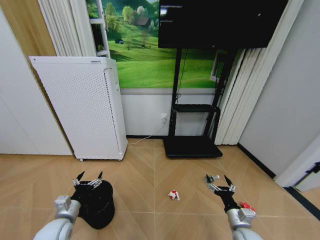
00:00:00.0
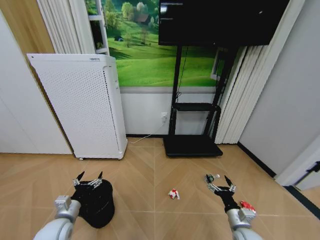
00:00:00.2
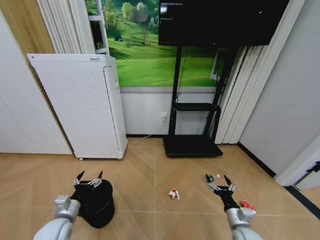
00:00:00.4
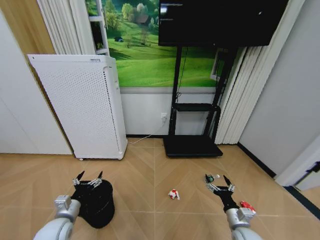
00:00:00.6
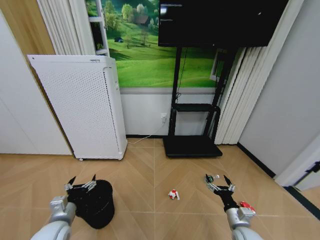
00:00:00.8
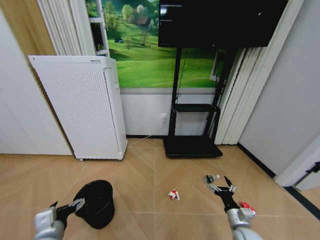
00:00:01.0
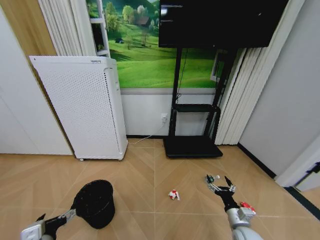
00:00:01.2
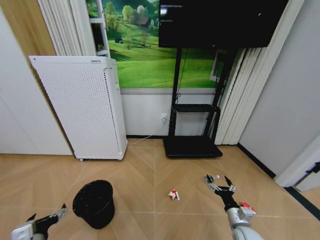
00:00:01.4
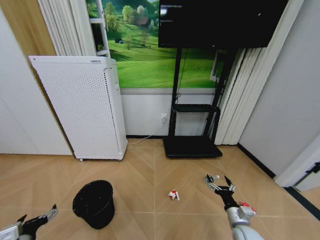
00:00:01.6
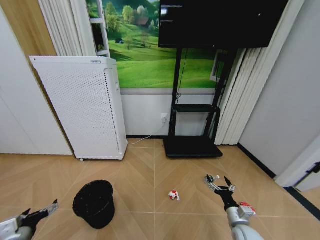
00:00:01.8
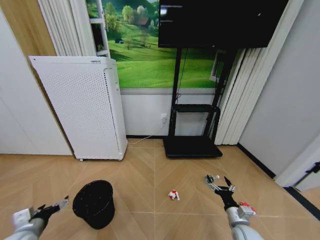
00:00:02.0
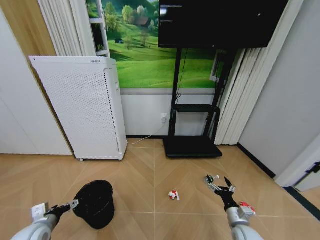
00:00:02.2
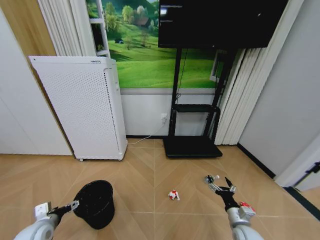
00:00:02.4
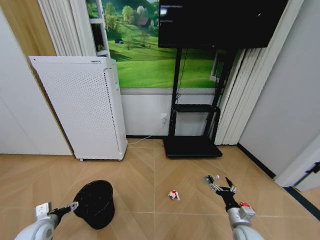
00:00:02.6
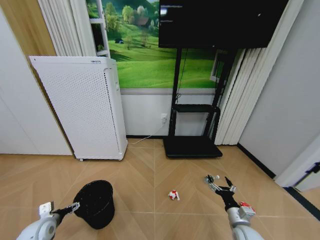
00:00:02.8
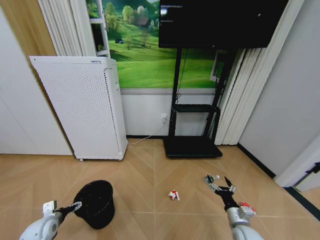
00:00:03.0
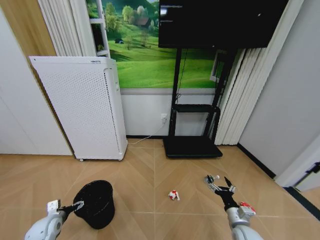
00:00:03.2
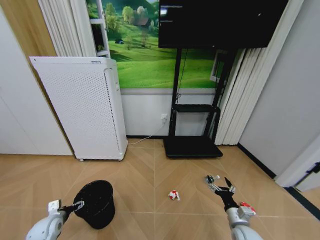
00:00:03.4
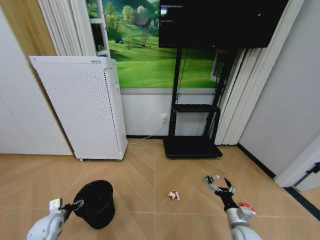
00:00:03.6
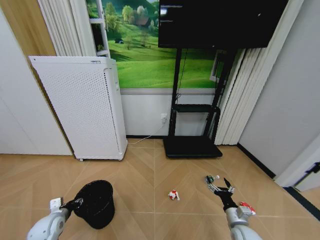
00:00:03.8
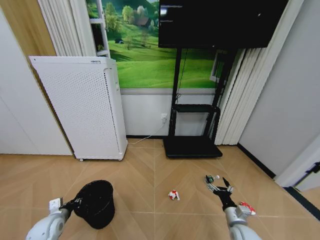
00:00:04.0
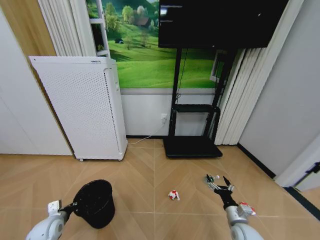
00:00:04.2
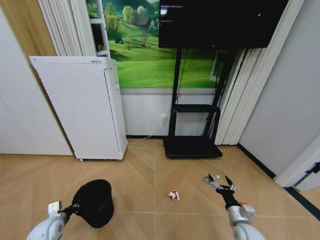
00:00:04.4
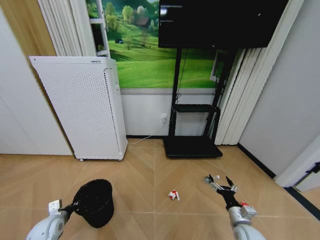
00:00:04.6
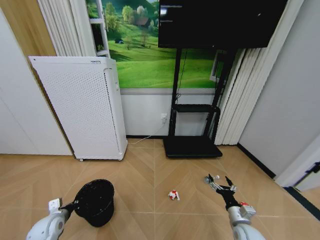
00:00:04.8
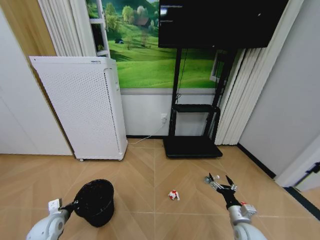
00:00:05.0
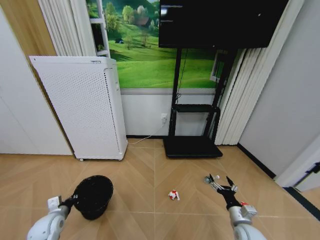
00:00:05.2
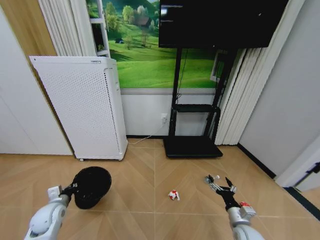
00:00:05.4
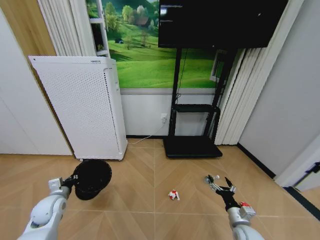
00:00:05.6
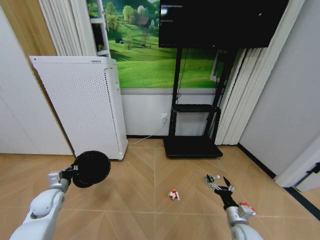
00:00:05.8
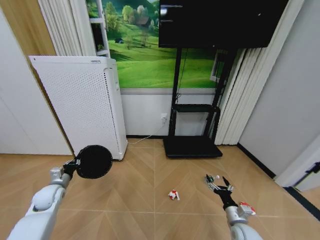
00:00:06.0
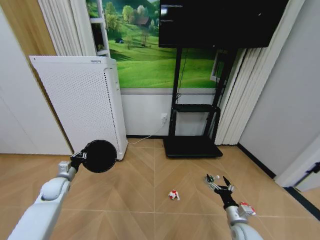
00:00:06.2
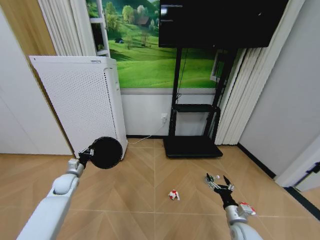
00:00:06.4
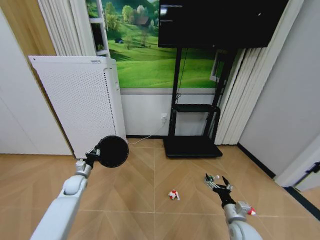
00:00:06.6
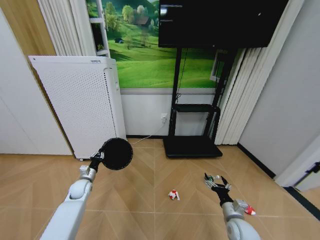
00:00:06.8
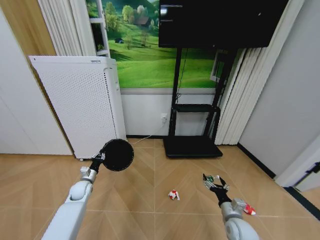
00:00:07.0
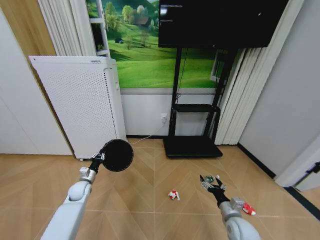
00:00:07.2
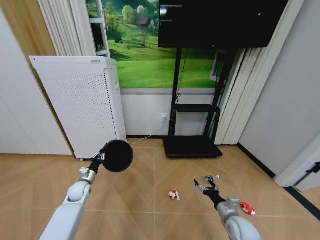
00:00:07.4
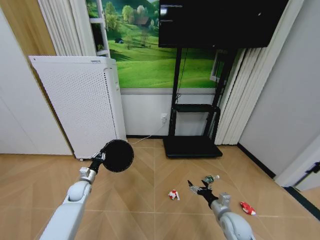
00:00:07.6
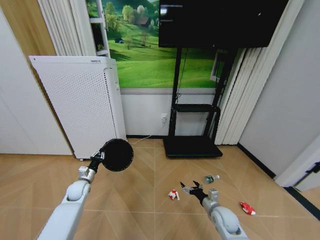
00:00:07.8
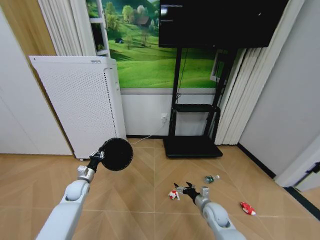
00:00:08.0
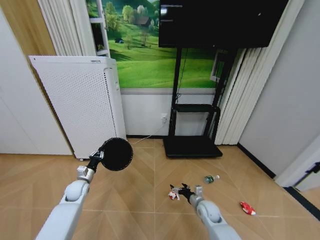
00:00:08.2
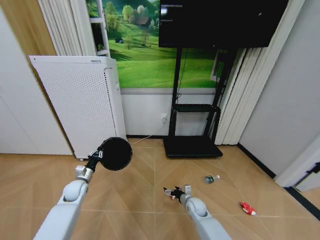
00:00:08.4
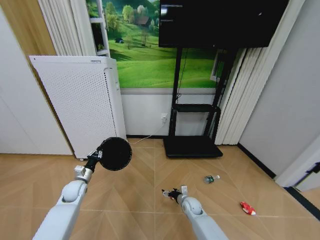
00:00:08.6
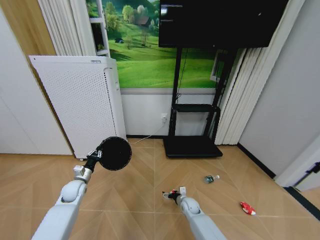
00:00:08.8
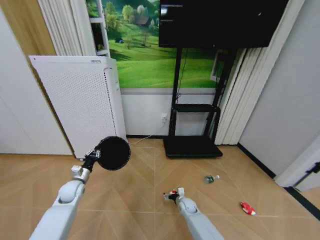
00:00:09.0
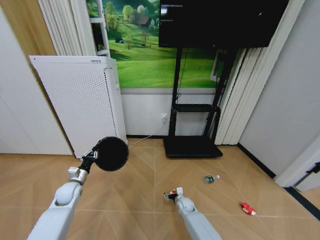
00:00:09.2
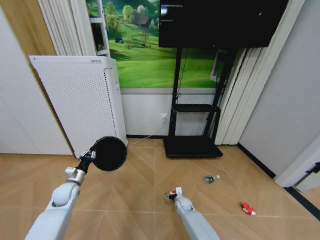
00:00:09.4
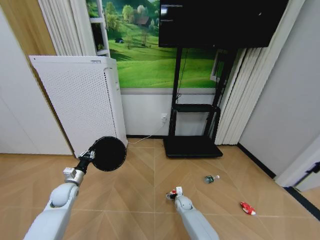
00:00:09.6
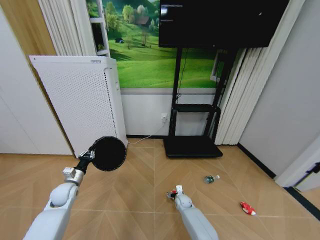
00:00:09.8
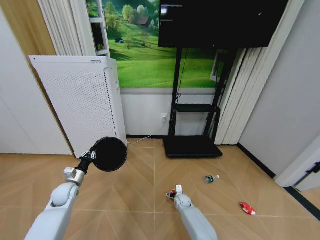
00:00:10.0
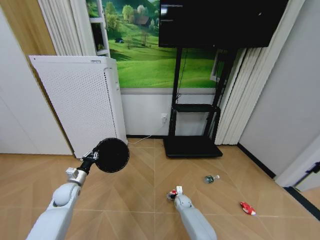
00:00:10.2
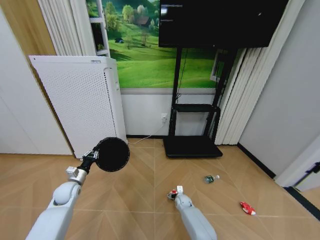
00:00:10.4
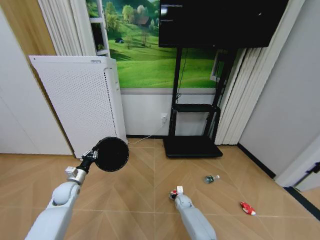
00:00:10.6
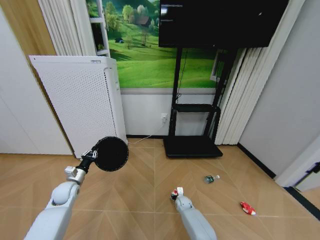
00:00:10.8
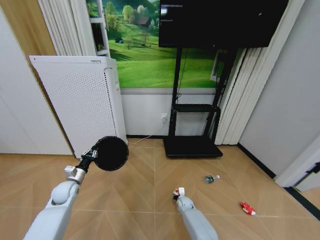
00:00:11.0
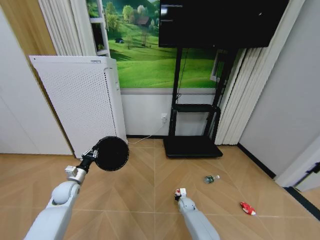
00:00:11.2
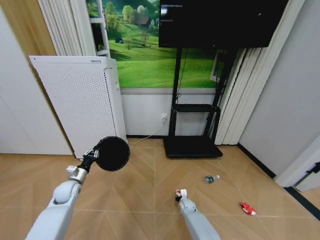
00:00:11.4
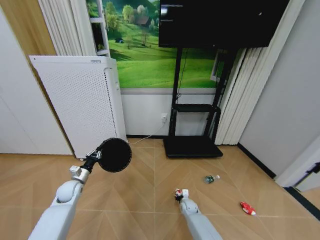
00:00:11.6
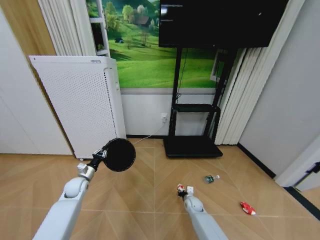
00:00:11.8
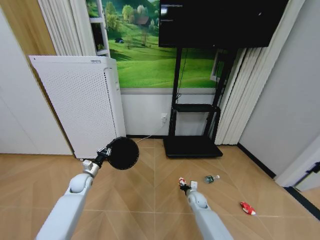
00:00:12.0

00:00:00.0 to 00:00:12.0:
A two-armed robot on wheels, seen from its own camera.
Task of the whole recording: Pick up the trash bin and place the garbage on the floor into it.
00:00:00.0 to 00:00:01.6: The left gripper is displaced backward and to the left by roughly 10 cm.
00:00:01.6 to 00:00:03.0: The left gripper shifts roughly 15 cm forward and downward.
00:00:03.0 to 00:00:04.4: The left gripper closes its fingers.
00:00:04.4 to 00:00:06.0: The left gripper goes approximately 15 cm forward and upward.
00:00:06.0 to 00:00:07.6: The right gripper changes place by approximately 5 cm; the left gripper travels to the right, downward and forward by about 10 cm.
00:00:07.6 to 00:00:09.0: The right gripper moves downward, forward and to the left, some 25 cm.
00:00:09.0 to 00:00:10.4: The right gripper ends up about 5 cm from where it was.
00:00:10.4 to 00:00:12.0: The right gripper shifts roughly 10 cm upward and to the right, and closes; the left gripper travels forward by some 5 cm.

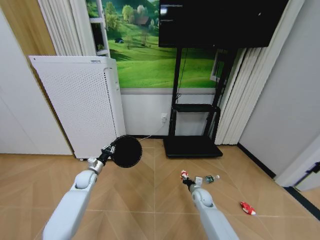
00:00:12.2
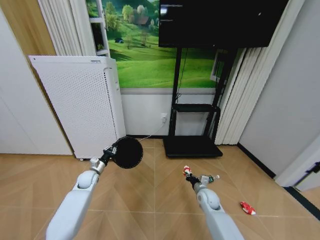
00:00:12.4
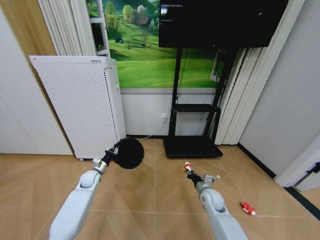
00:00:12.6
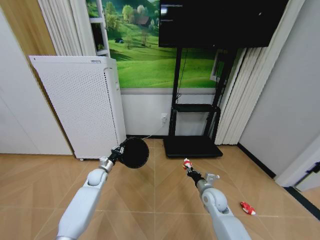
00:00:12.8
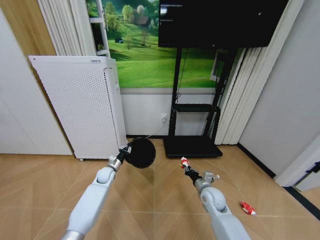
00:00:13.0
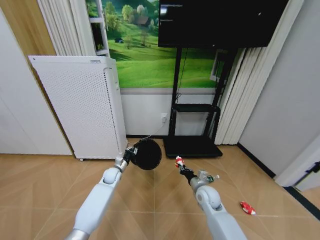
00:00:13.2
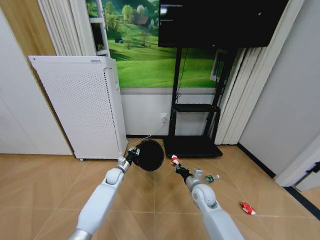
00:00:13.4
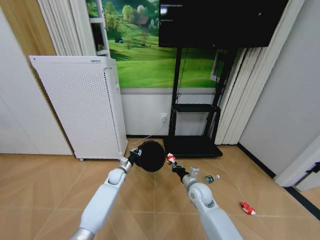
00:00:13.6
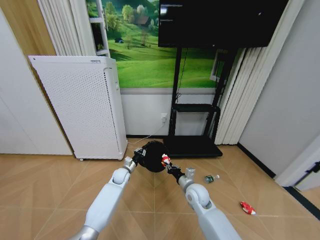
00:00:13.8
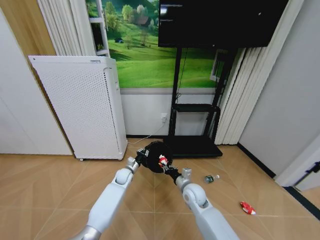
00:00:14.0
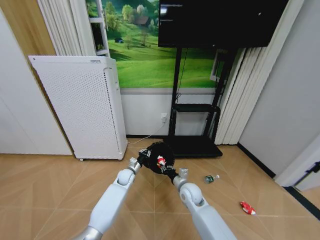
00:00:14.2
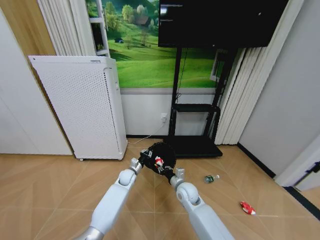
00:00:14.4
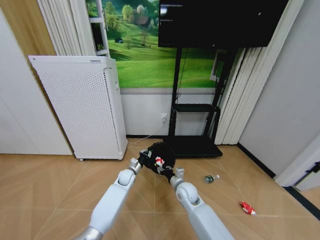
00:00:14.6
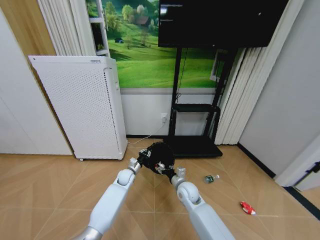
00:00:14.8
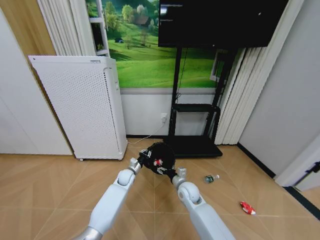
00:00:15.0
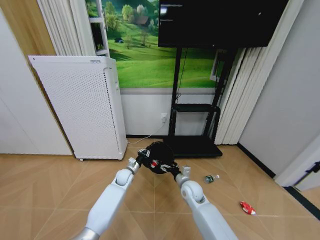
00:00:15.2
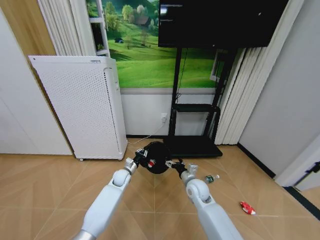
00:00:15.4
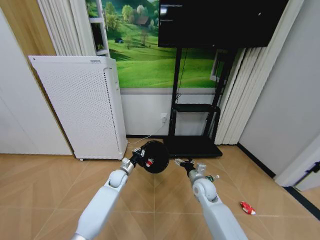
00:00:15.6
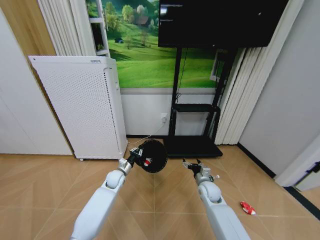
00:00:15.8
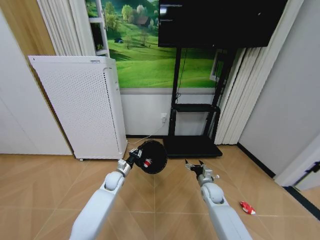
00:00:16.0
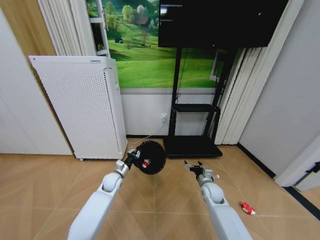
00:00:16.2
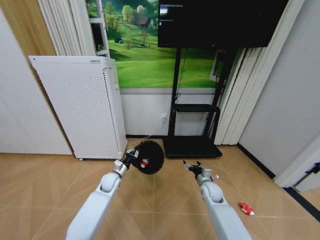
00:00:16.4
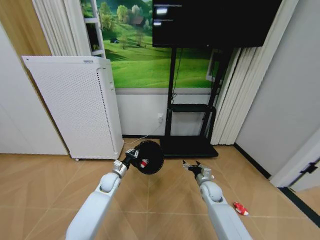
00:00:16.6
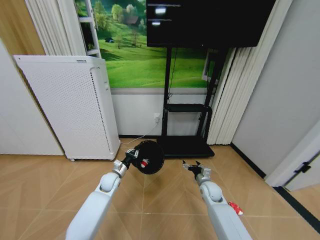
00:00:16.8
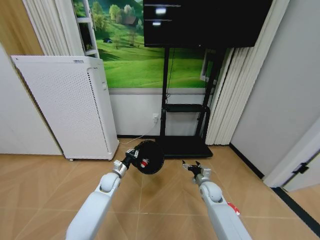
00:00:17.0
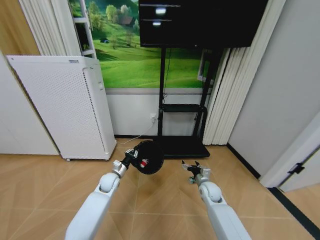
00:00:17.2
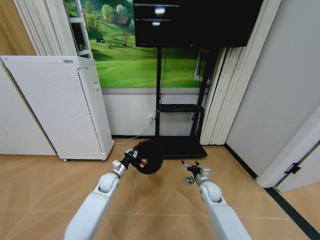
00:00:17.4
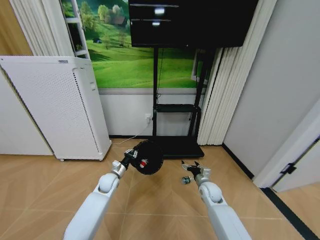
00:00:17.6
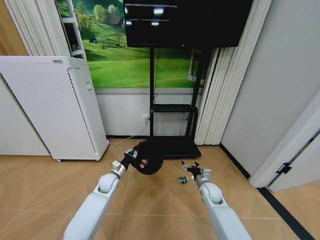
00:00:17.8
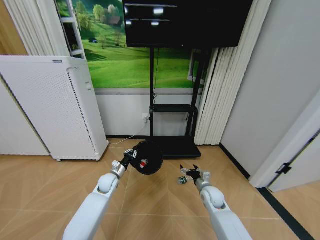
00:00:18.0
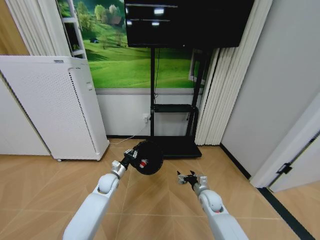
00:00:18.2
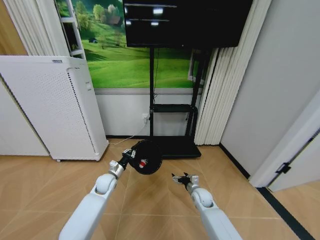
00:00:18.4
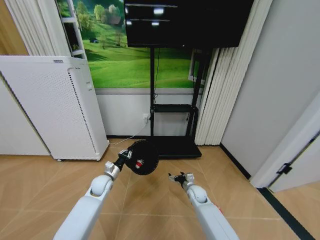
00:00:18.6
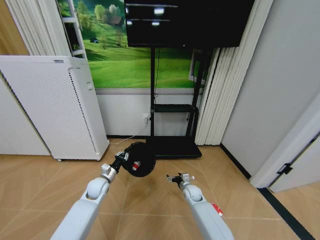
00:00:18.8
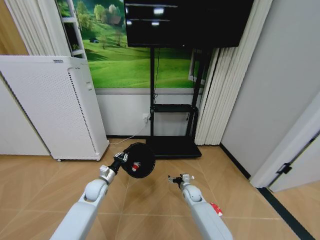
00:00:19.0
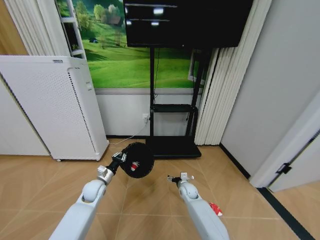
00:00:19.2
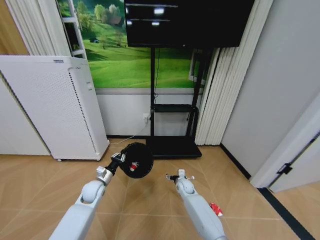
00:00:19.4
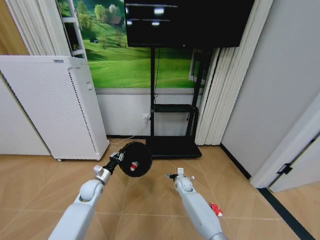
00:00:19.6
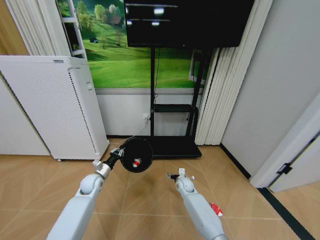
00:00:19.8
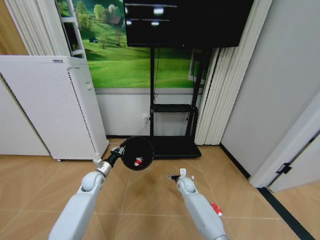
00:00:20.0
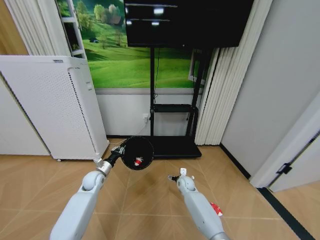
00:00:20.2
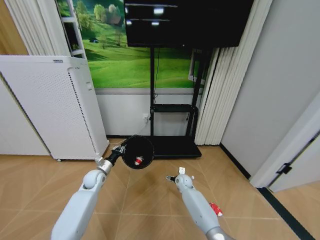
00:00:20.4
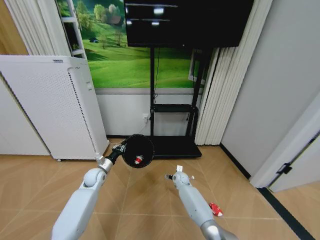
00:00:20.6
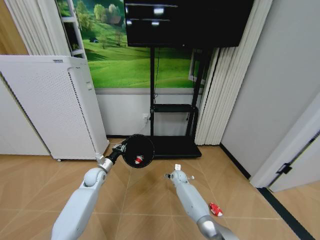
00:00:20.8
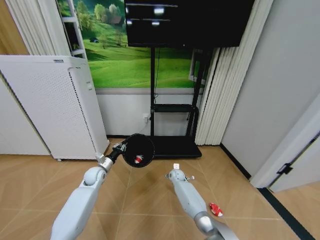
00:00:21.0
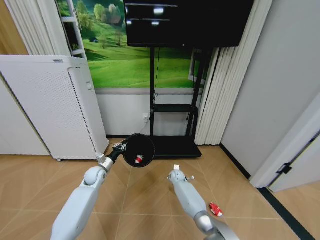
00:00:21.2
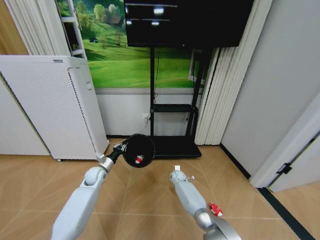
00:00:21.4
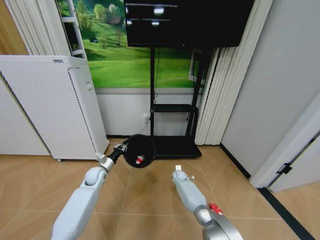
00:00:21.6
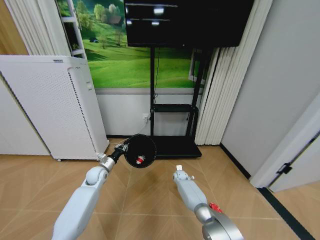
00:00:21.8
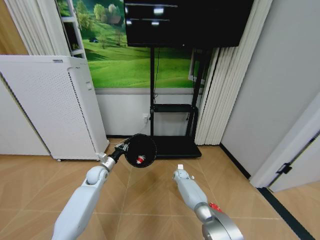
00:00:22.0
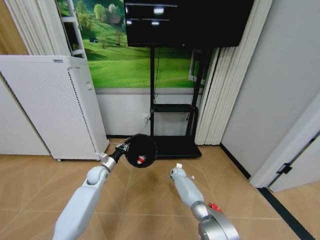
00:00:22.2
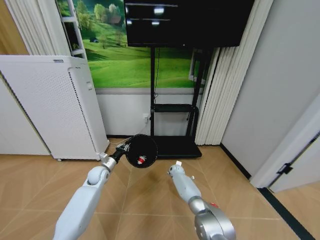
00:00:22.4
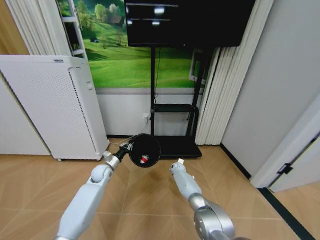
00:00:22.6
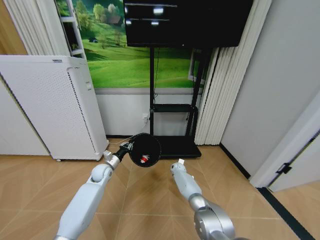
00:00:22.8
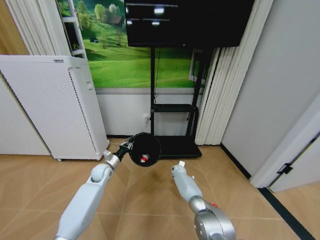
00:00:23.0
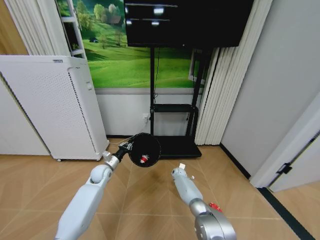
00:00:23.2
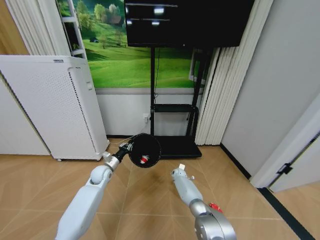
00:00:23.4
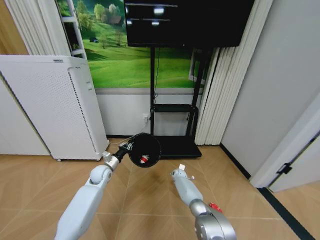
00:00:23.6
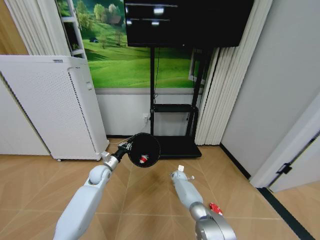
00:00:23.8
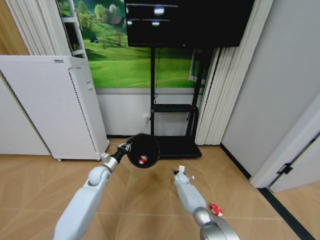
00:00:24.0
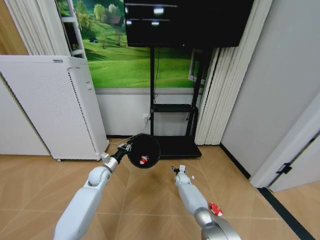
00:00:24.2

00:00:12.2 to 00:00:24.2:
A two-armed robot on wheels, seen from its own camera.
Task of the whole recording: Pick up the trash bin and place the garbage on the floor into it.
00:00:12.2 to 00:00:13.8: The left gripper travels to the right by about 15 cm. The right gripper heads upward and to the left, covering some 15 cm.
00:00:13.8 to 00:00:15.2: The right gripper opens up.
00:00:15.2 to 00:00:16.6: The left gripper moves to the left, roughly 5 cm. The right gripper travels to the right by roughly 10 cm.
00:00:18.2 to 00:00:19.8: The left gripper goes about 10 cm to the left. The right gripper travels forward and to the left by about 15 cm.
00:00:19.8 to 00:00:21.2: The right gripper is displaced forward by some 5 cm.
00:00:21.2 to 00:00:22.6: The right gripper is displaced forward by approximately 5 cm.
00:00:22.6 to 00:00:24.2: The right gripper goes about 10 cm downward and backward.
